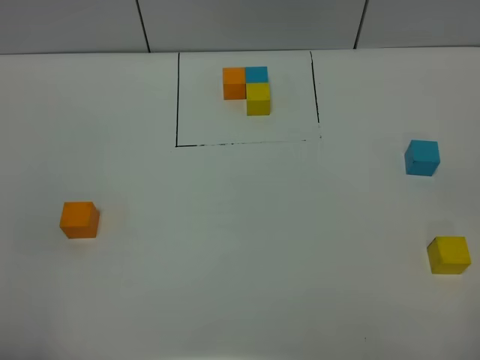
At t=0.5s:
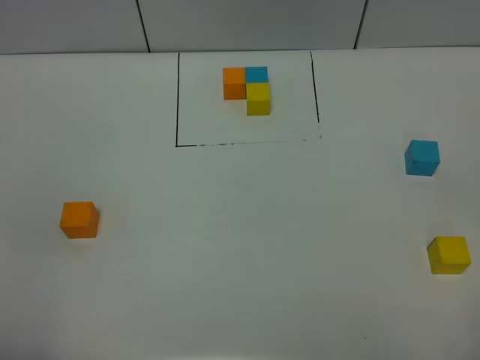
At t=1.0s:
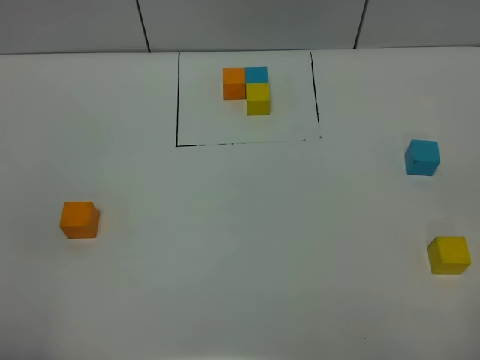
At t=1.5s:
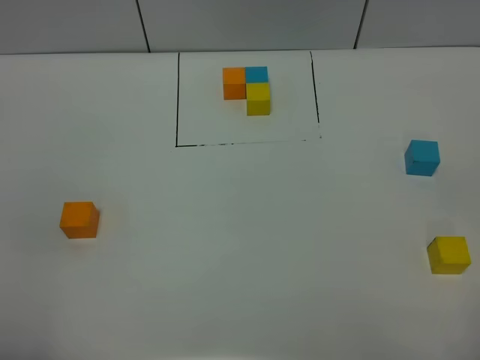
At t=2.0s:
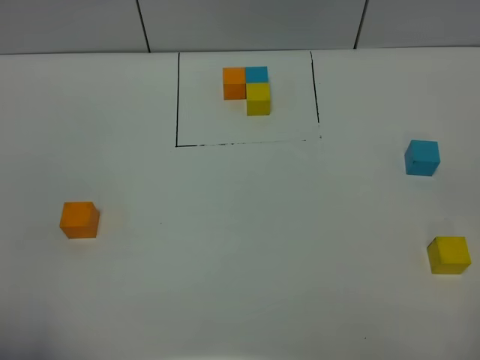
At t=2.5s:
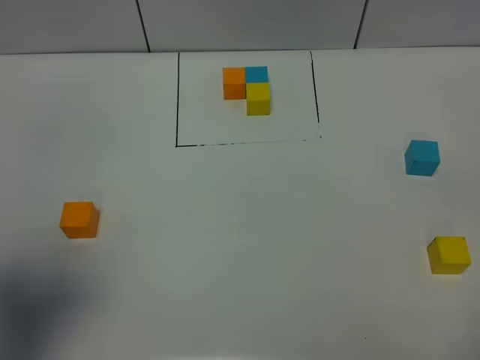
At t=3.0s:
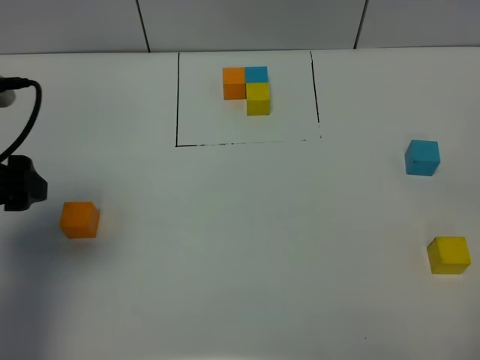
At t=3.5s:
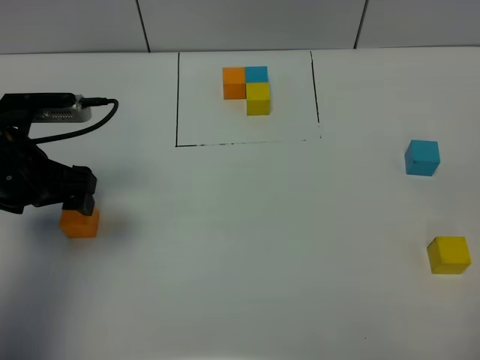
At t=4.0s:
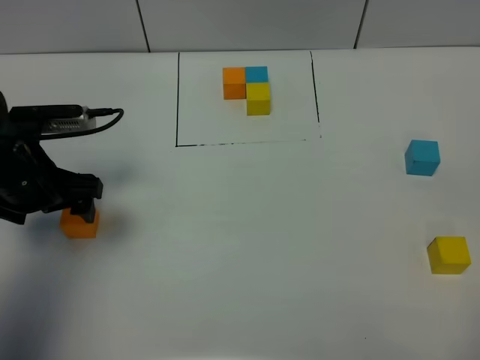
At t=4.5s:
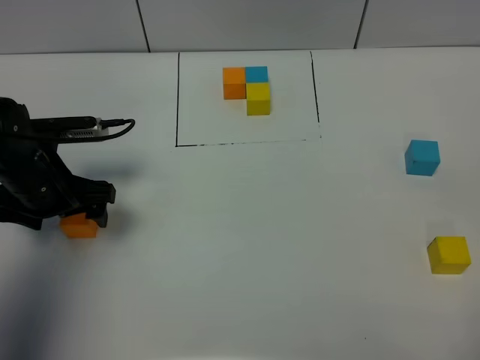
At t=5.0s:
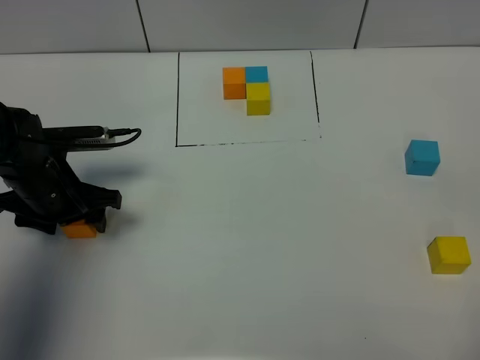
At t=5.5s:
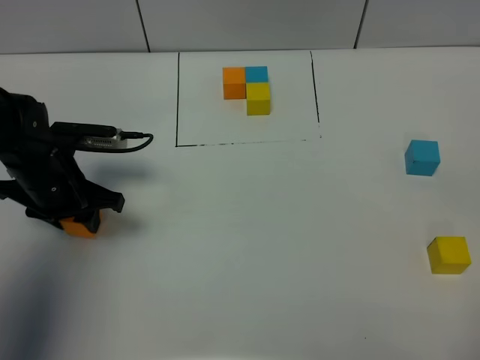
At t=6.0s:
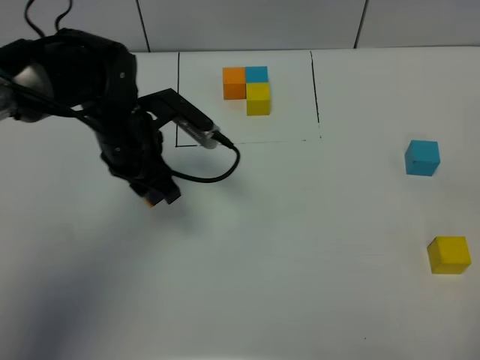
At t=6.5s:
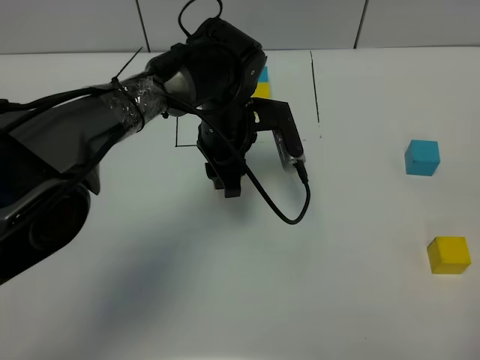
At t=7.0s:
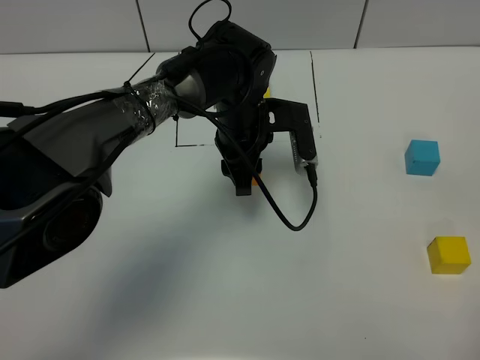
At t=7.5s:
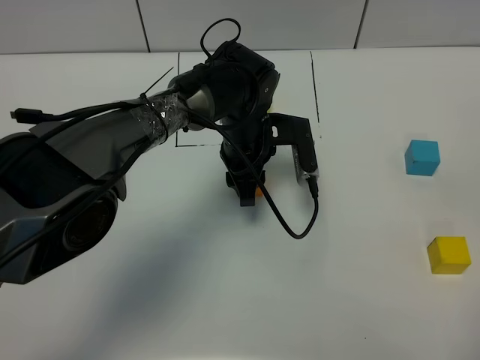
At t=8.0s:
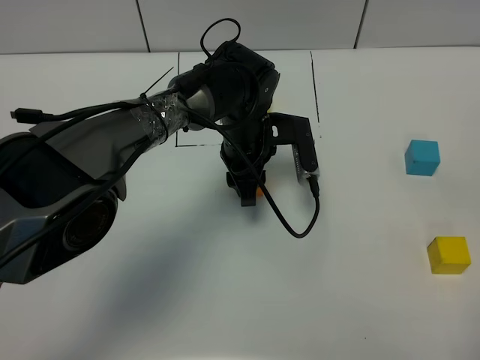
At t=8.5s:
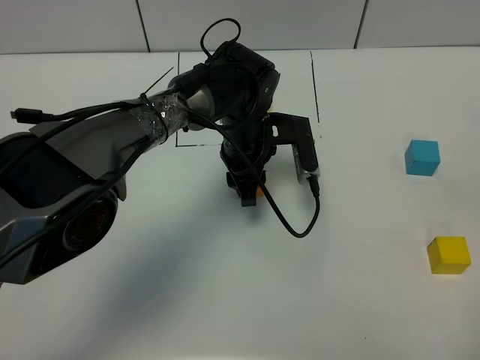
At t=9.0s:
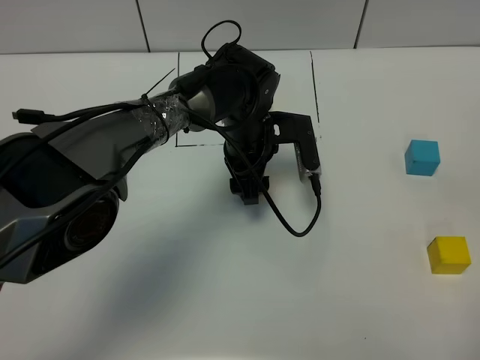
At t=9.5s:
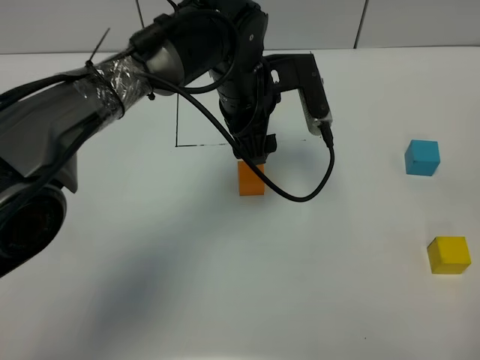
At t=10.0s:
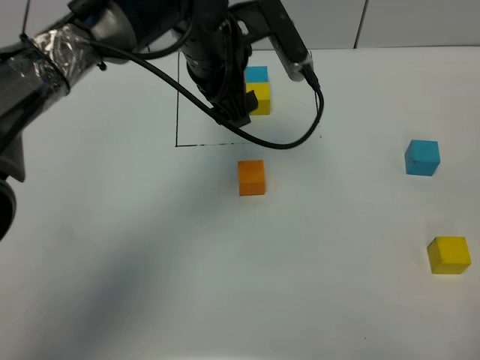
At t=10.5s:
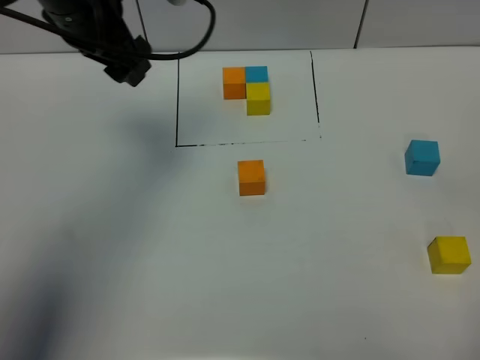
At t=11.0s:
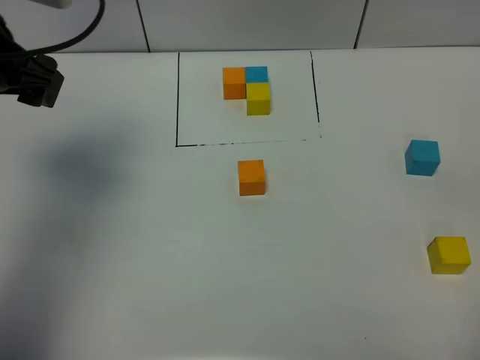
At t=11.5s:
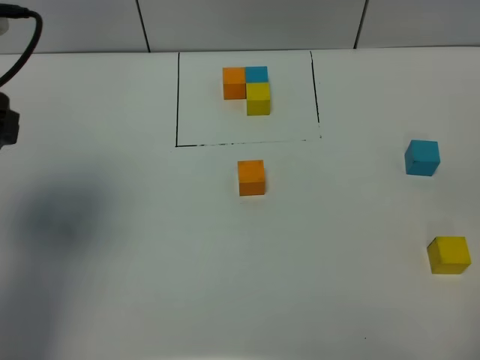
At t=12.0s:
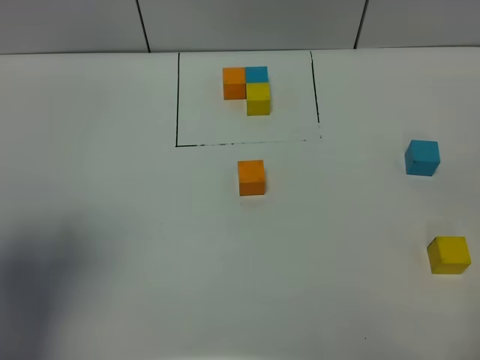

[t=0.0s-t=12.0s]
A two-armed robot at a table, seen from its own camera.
Task of the whole recording: According to the building block template in front, assemble the scattered blocks together.
Step, t=0.0s to t=8.5s: Put the orange build block in the center of the table.
t=2.0s to t=4.0s: The left gripper heads forward and downward, covering approximately 30 cm.
t=4.0s to t=6.0s: The left gripper shifts approximately 15 cm to the right and forward, and closes its fingers.
t=6.0s to t=8.0s: The left gripper goes roughly 15 cm to the right and downward.
t=8.0s to t=10.0s: The left gripper travels upward by roughly 15 cm, and opens.
t=10.0s to t=12.0s: The left gripper goes about 35 cm backward and to the left.

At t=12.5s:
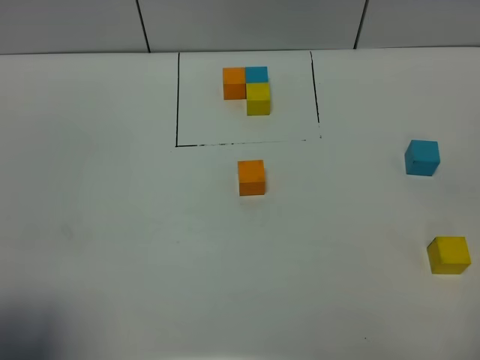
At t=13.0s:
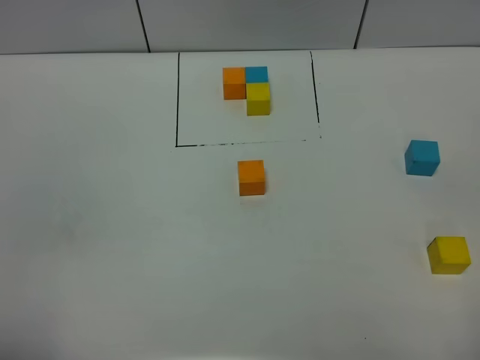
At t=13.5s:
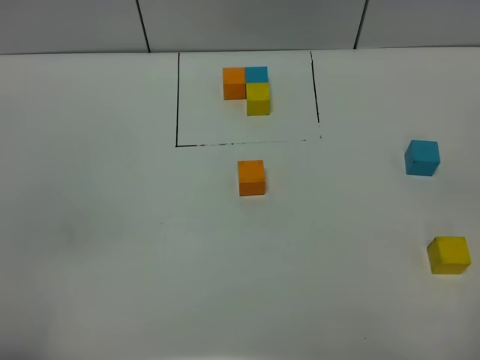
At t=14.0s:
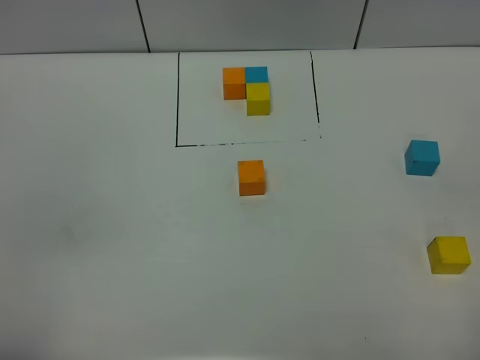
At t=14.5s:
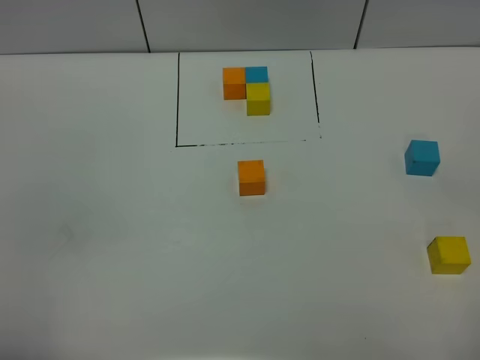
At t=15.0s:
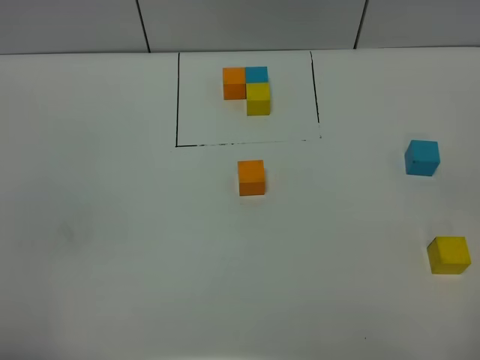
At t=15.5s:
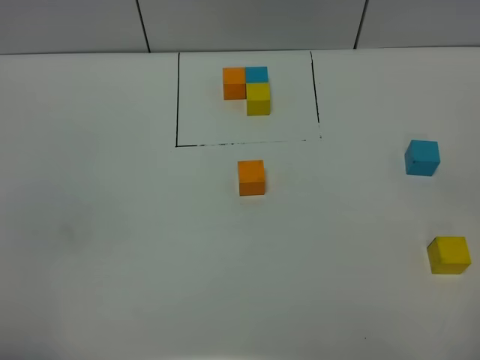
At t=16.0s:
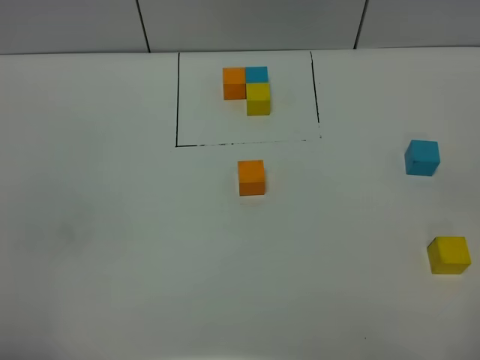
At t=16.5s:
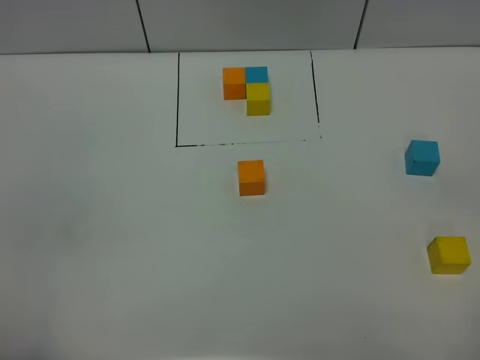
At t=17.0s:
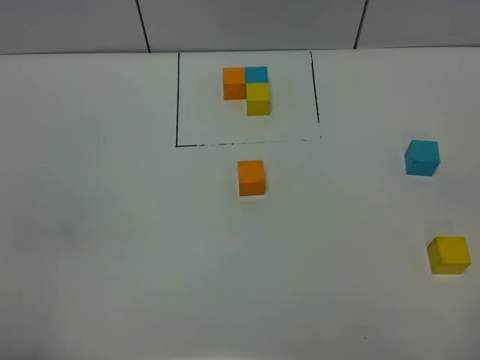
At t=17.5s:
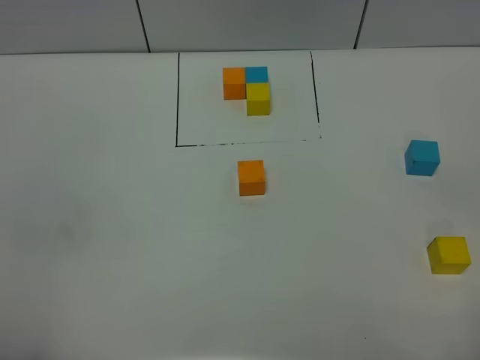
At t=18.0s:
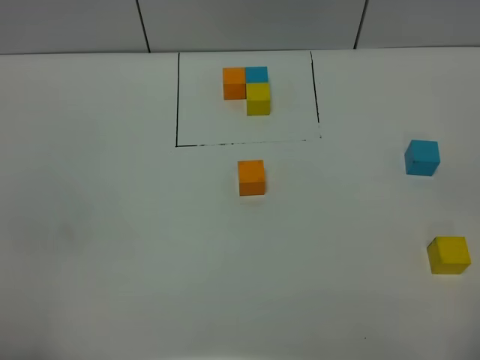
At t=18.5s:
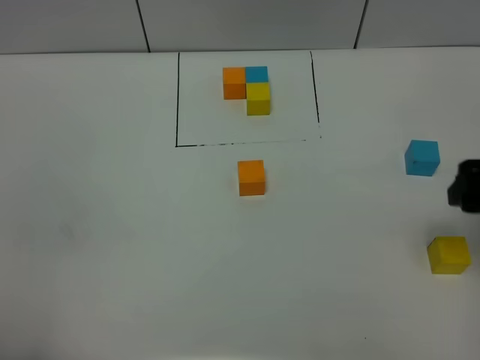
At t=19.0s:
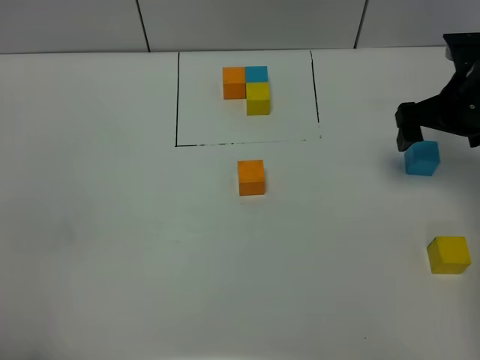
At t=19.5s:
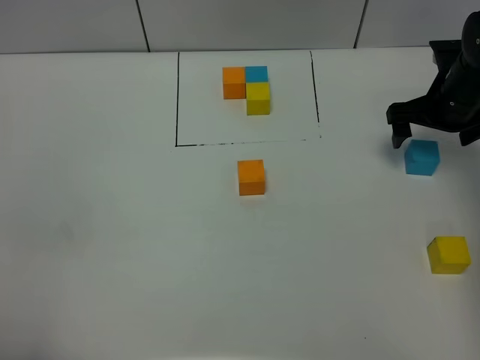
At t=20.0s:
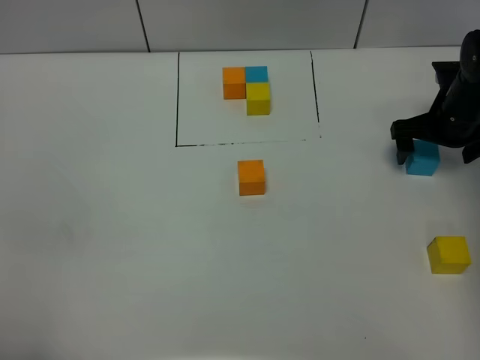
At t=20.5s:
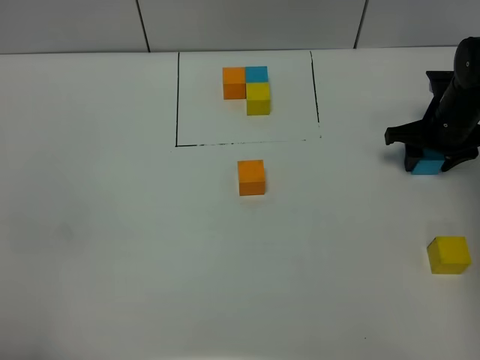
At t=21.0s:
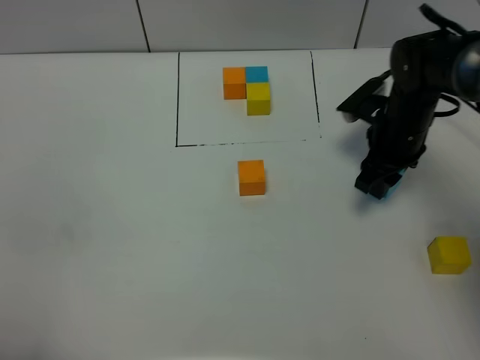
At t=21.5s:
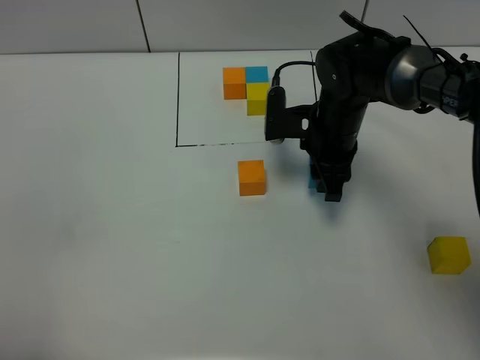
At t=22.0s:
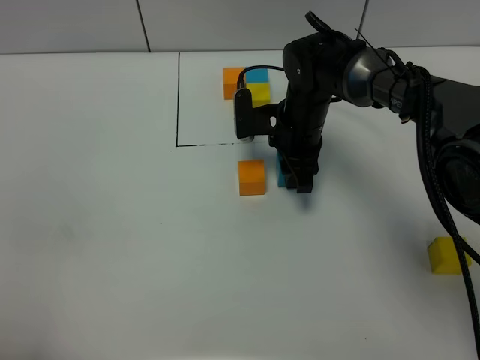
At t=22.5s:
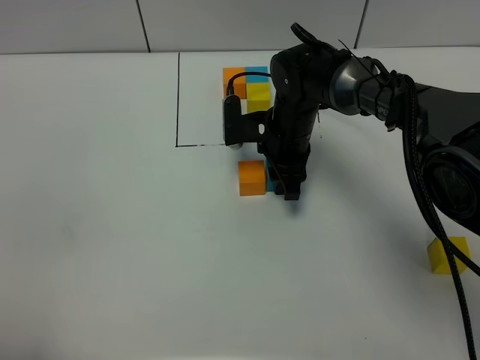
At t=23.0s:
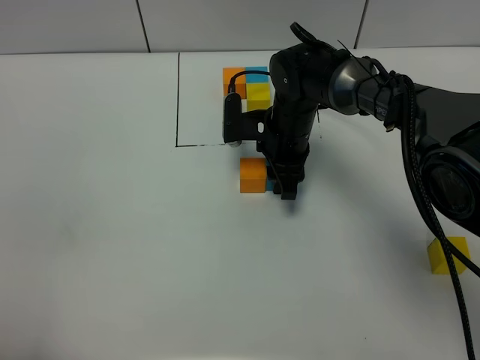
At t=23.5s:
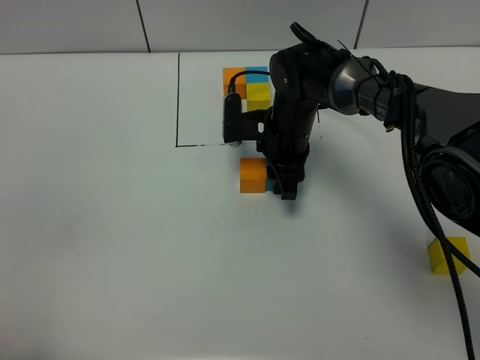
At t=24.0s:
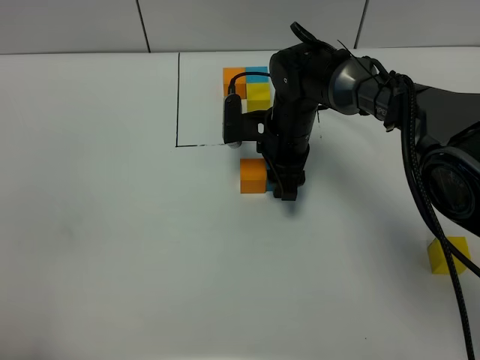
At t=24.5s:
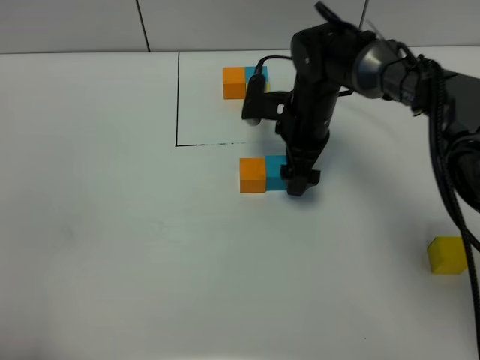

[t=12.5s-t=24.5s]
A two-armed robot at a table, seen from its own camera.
Task of the whole recording: According to the building block template in front, assemble the scattered blocks together.
Step, t=12.5s to t=24.0s: Put the blue build block on the right of the orange build block.
t=12.5s to t=14.5s: The left gripper moves backward, roughly 5 cm.
t=16.5s to t=18.5s: The right gripper shifts approximately 25 cm forward.
t=18.5s to t=20.5s: The right gripper goes approximately 25 cm forward and downward, and closes.
t=20.5s to t=22.5s: The right gripper moves to the left, roughly 25 cm.
t=22.5s to t=24.5s: The right gripper changes place by roughly 5 cm, and opens.

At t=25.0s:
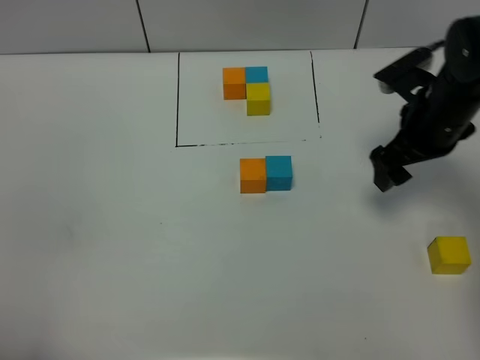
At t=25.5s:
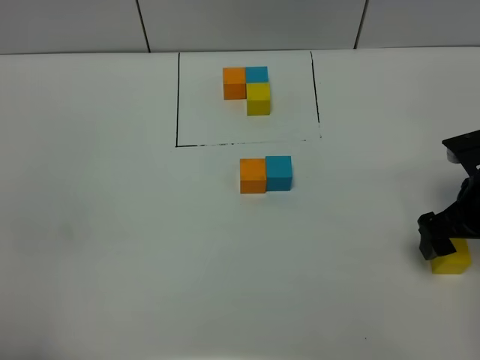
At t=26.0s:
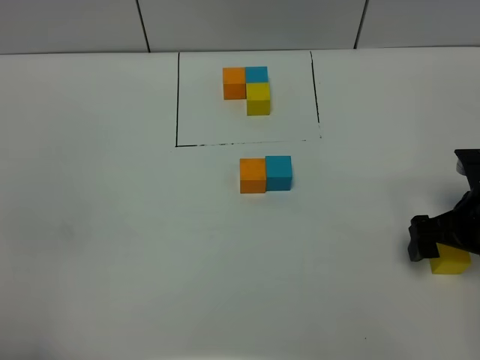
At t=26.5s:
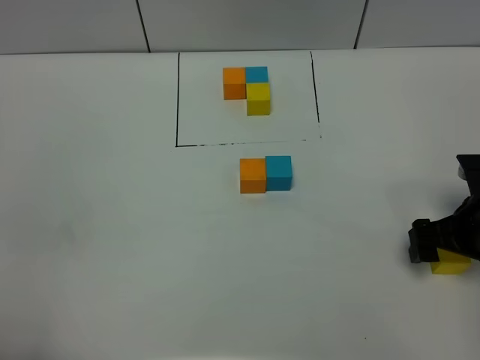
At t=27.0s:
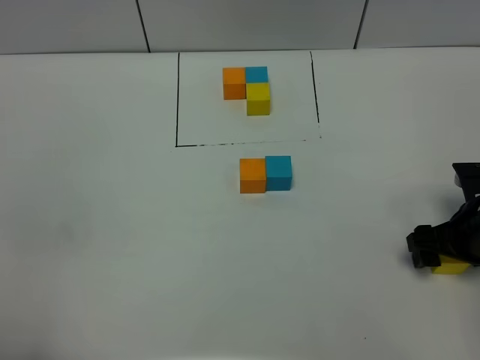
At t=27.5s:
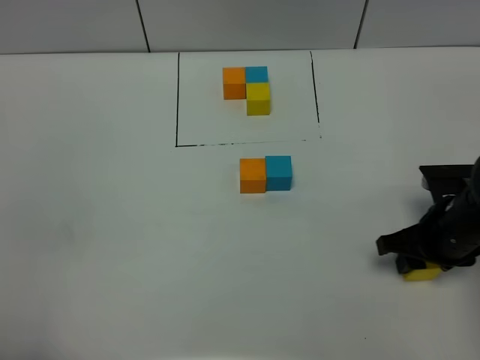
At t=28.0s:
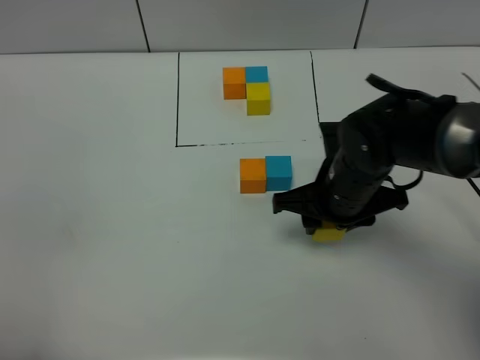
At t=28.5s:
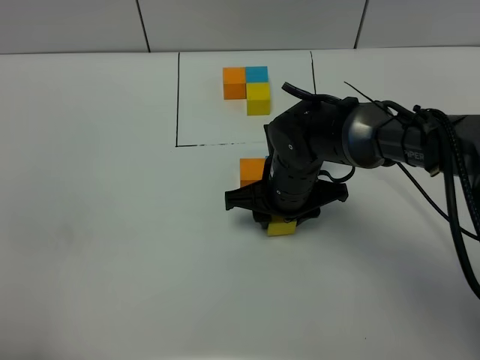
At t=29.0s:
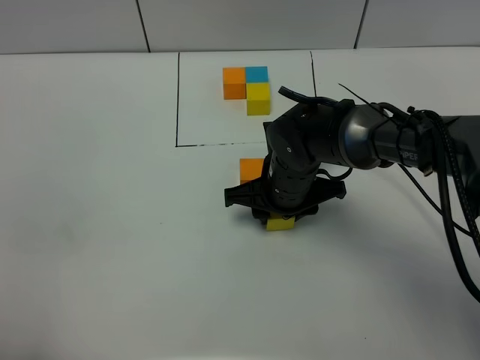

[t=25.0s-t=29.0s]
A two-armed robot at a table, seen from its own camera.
Task of the whole recording: According to the building block template in front, assemble the scattered blocks together.
t=25.0s to t=27.0s: The right gripper is displaced backward and downward by approximately 15 cm.
t=27.0s to t=29.0s: The right gripper is displaced to the left and forward by some 25 cm, and closes.
